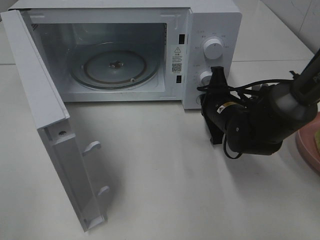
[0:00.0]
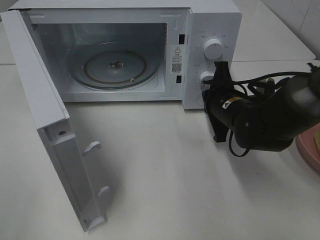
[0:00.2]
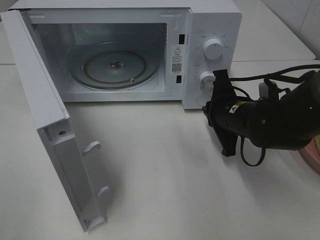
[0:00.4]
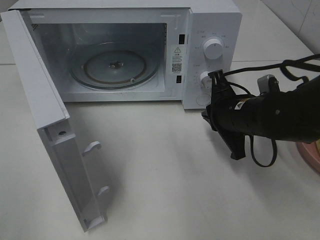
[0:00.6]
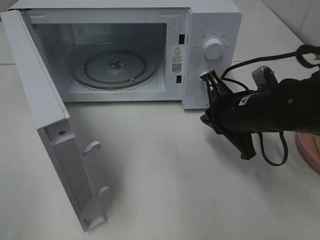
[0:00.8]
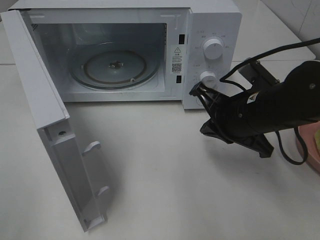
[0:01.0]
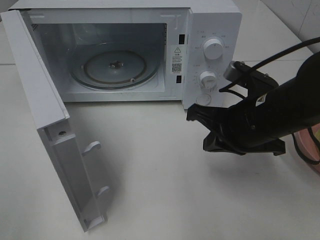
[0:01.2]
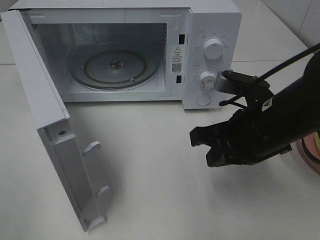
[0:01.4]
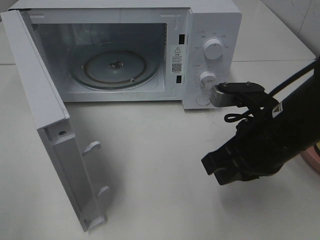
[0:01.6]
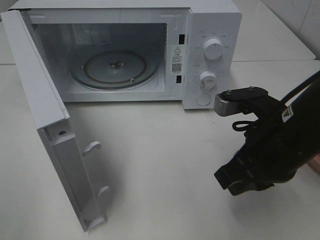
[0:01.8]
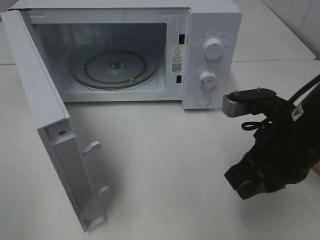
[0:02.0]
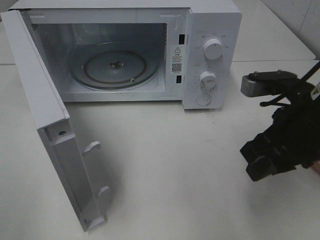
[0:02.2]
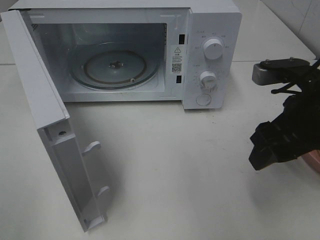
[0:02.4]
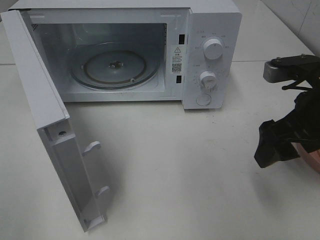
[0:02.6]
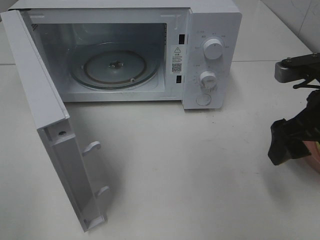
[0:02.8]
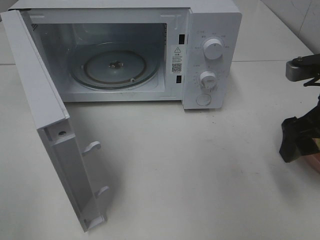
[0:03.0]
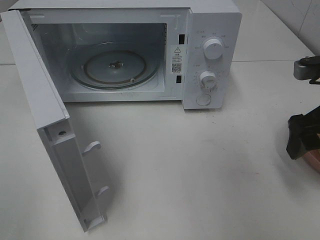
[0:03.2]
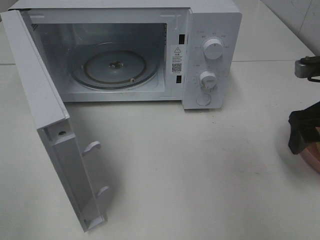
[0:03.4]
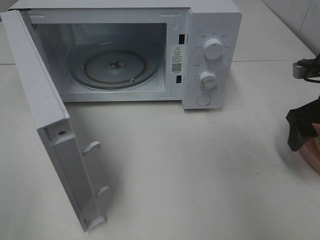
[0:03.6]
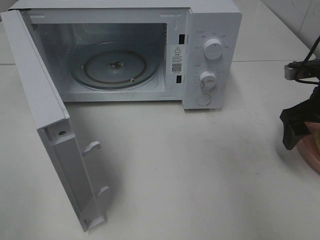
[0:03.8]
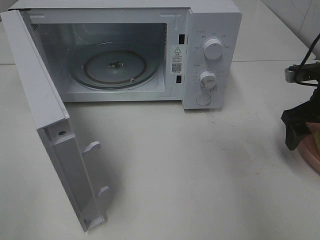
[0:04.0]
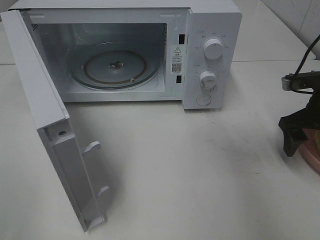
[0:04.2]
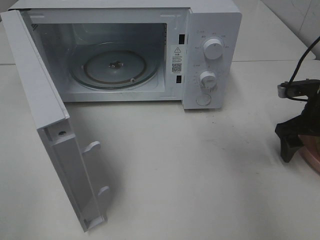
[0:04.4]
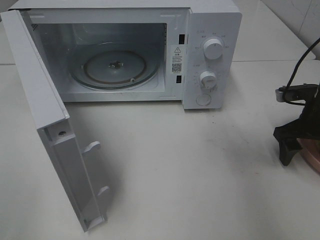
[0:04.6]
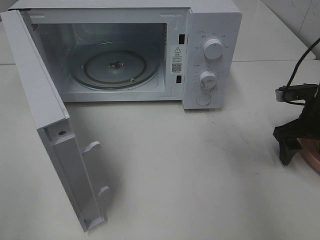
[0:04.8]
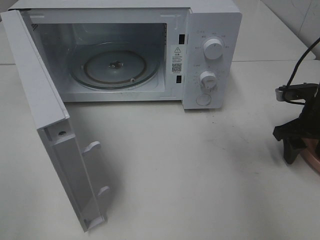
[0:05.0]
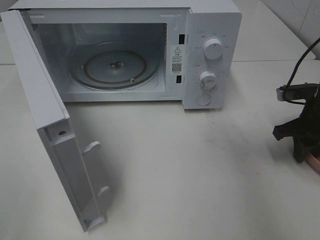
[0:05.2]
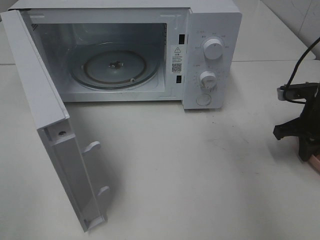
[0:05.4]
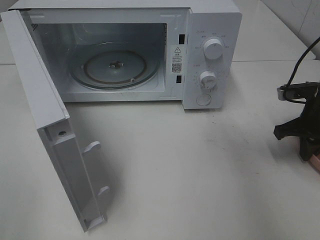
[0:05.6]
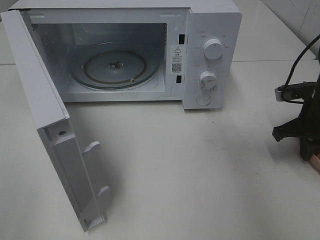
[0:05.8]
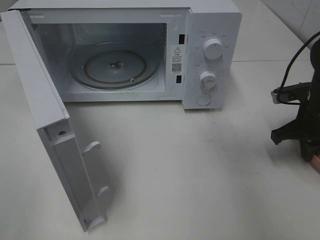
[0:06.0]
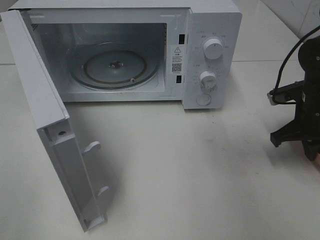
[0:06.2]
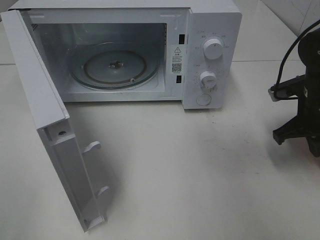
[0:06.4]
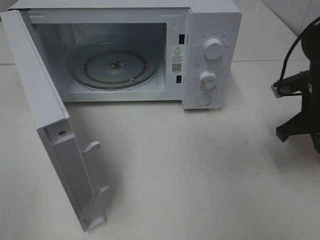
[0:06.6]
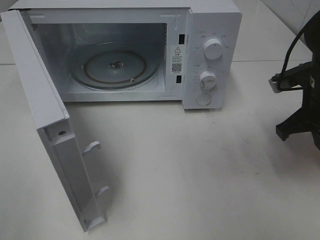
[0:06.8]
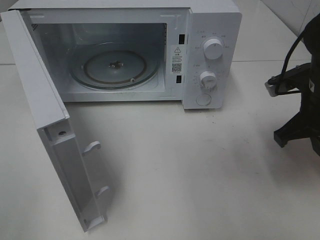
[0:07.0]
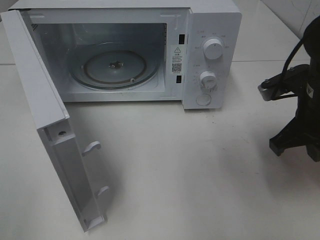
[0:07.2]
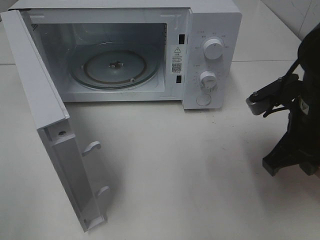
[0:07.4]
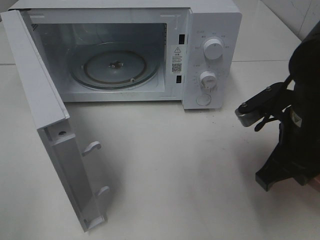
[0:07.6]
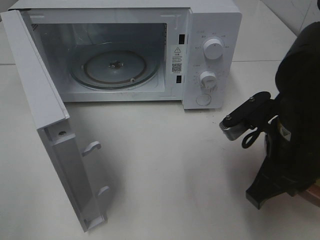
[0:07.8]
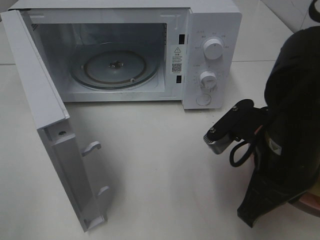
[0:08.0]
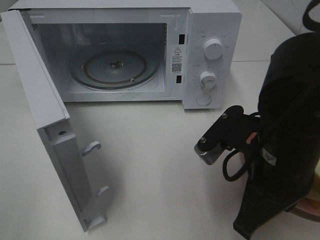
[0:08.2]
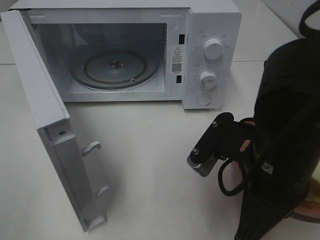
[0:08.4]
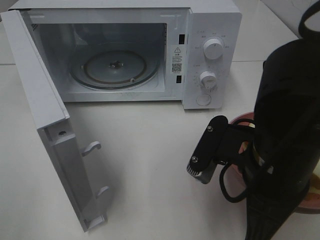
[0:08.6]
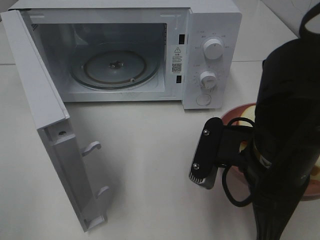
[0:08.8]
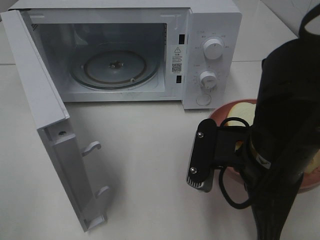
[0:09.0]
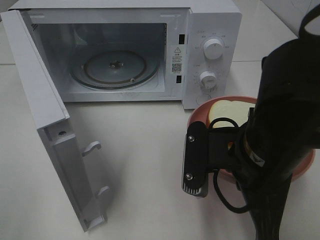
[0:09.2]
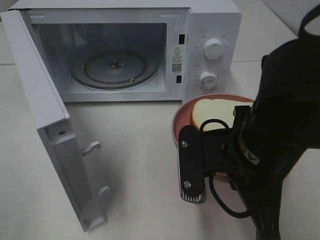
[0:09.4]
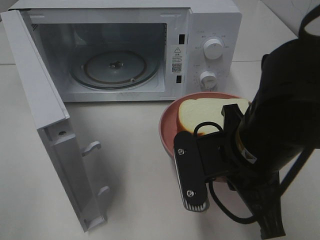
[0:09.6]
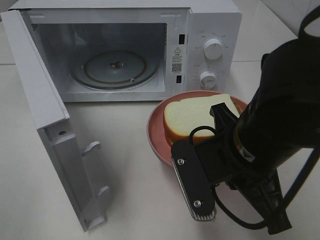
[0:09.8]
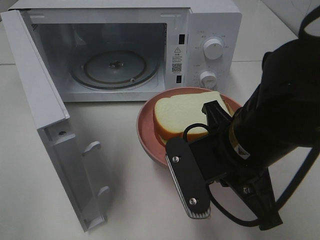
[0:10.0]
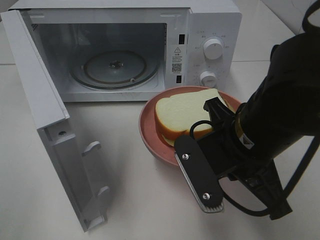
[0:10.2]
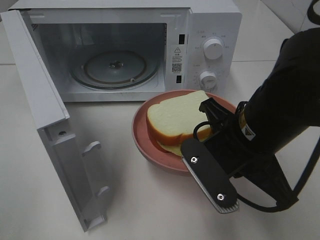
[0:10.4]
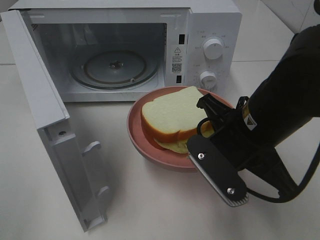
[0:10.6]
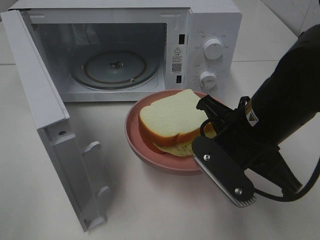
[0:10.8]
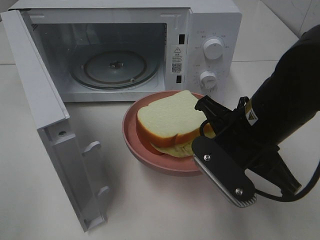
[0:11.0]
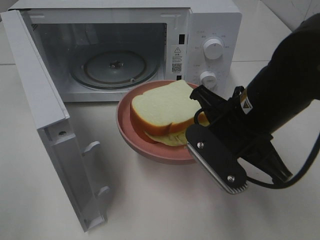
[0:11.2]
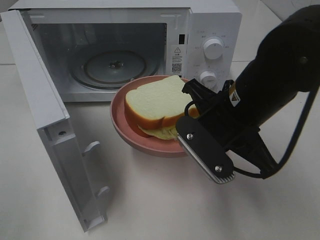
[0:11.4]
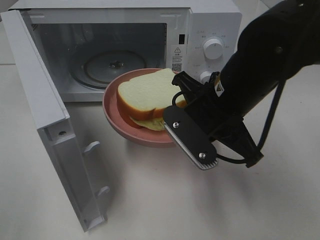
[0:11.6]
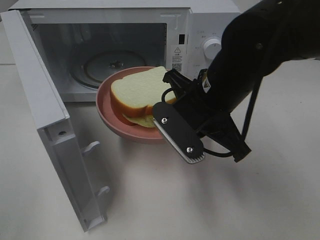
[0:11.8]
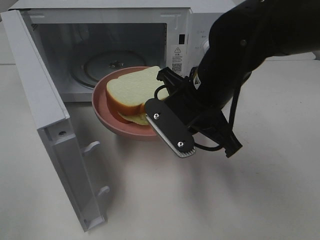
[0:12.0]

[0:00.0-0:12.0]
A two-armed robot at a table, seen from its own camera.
Task of the whole recording: Heat Sandwich.
Step, 0:00.2 to 0:05.8: Right hand: grab the plate with the sandwich.
0:00.0 to 0:01.6: The right gripper goes about 15 cm backward and upward.
0:01.6 to 0:03.0: The right gripper travels to the right by about 10 cm, and opens up.
0:03.0 to 0:04.4: The right gripper travels downward, forward and to the right by some 15 cm.
0:04.4 to 0:06.0: The right gripper closes up.
0:06.0 to 0:07.6: The right gripper moves backward, to the left and upward, approximately 15 cm.
0:07.6 to 0:09.0: The right gripper shifts about 5 cm to the left.
0:10.4 to 0:12.0: The right gripper heads forward, covering approximately 5 cm.

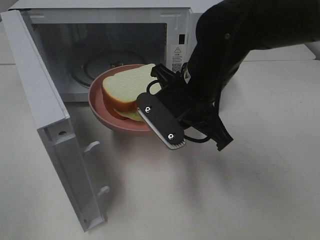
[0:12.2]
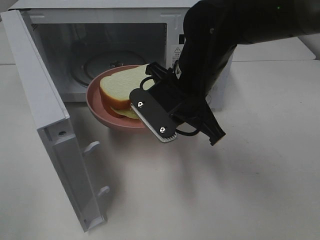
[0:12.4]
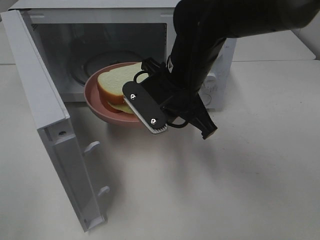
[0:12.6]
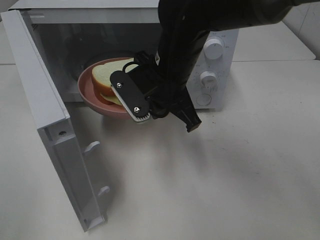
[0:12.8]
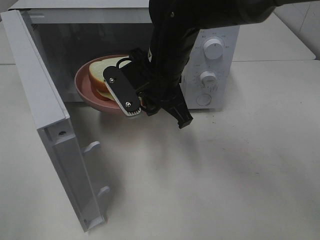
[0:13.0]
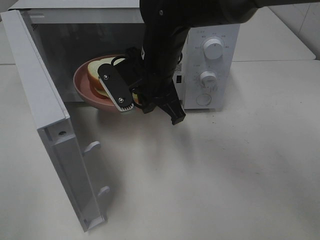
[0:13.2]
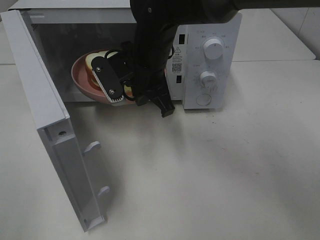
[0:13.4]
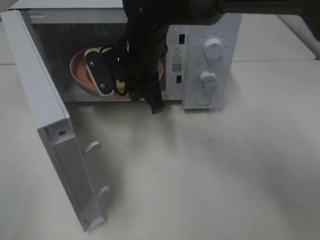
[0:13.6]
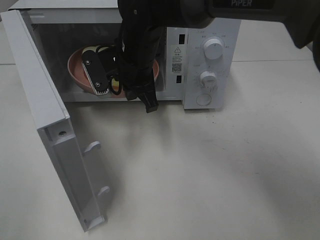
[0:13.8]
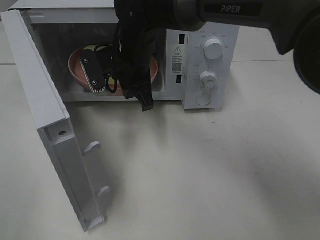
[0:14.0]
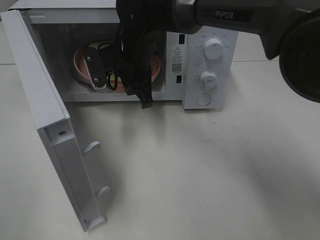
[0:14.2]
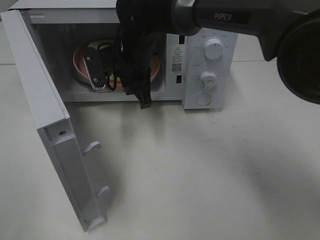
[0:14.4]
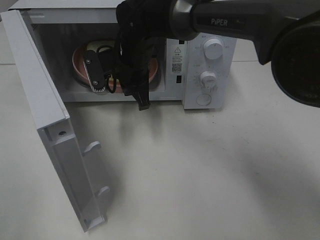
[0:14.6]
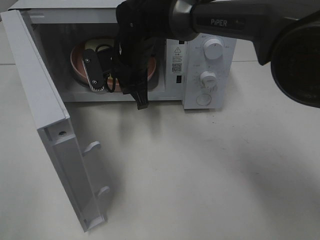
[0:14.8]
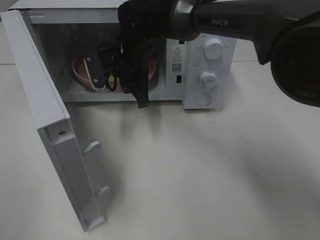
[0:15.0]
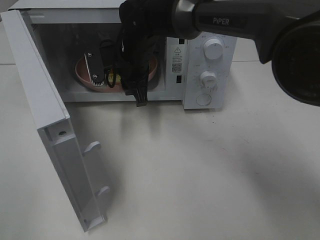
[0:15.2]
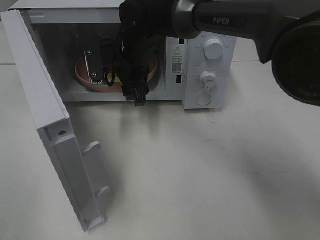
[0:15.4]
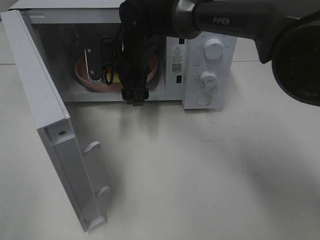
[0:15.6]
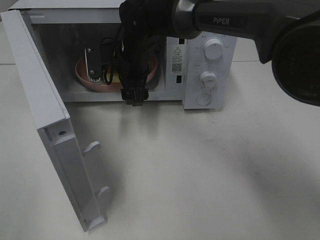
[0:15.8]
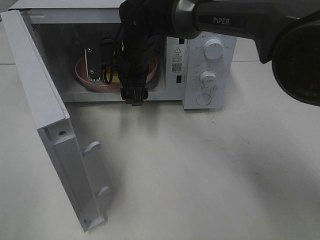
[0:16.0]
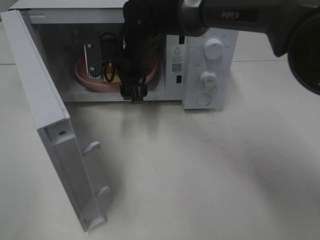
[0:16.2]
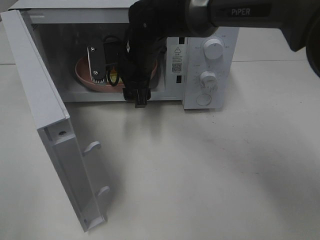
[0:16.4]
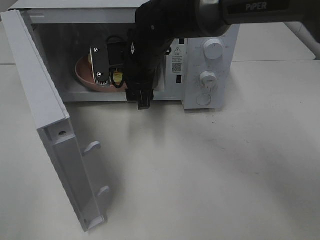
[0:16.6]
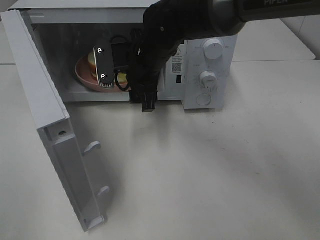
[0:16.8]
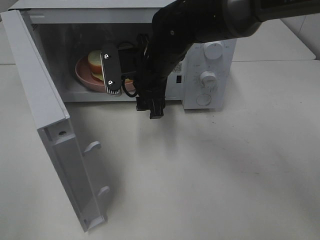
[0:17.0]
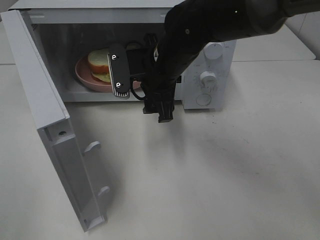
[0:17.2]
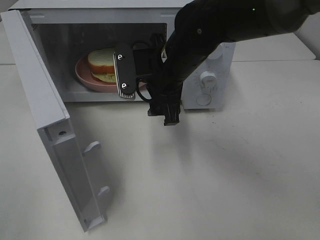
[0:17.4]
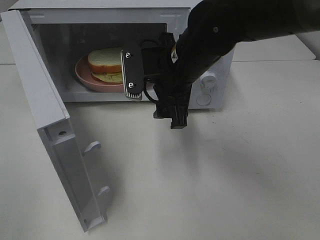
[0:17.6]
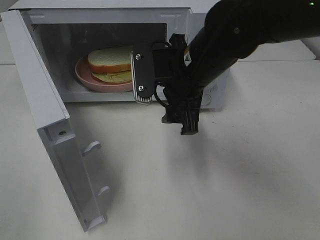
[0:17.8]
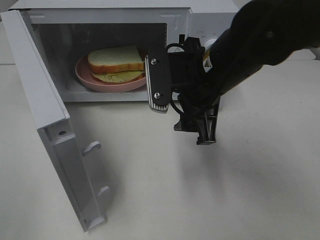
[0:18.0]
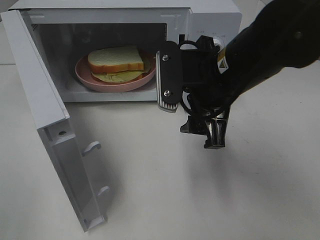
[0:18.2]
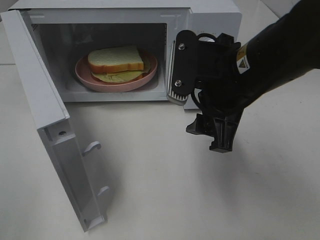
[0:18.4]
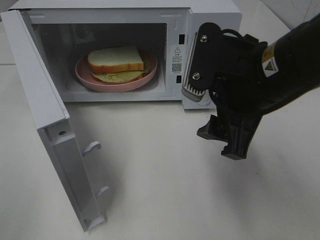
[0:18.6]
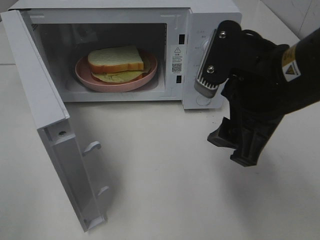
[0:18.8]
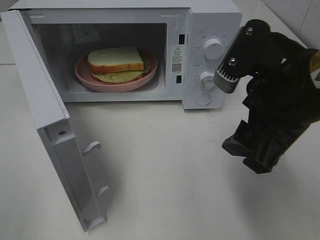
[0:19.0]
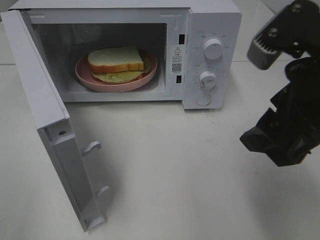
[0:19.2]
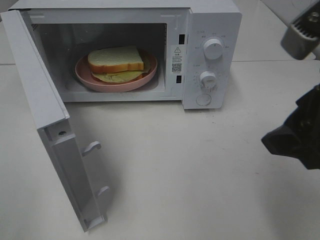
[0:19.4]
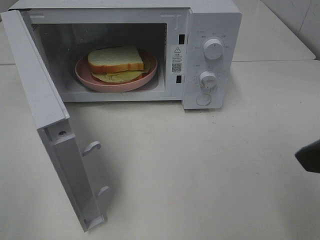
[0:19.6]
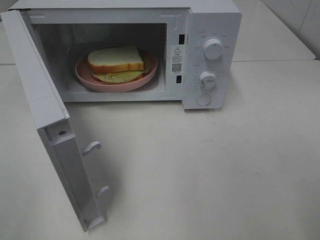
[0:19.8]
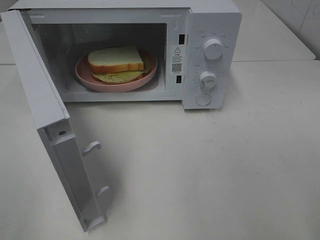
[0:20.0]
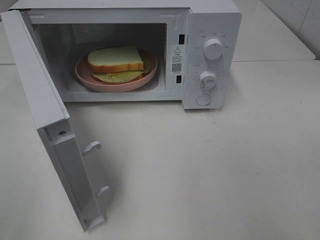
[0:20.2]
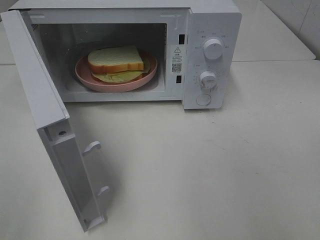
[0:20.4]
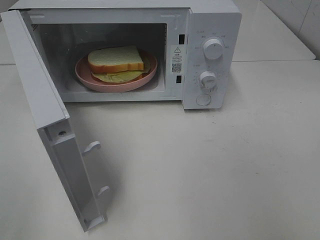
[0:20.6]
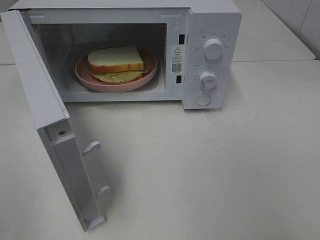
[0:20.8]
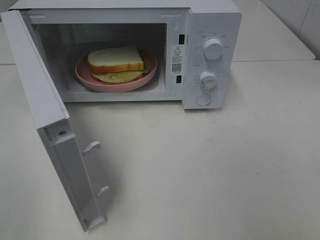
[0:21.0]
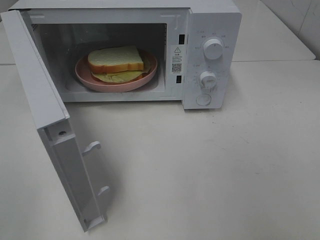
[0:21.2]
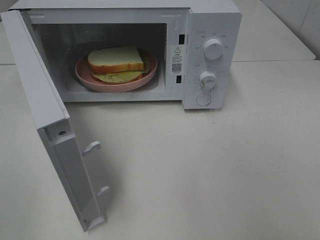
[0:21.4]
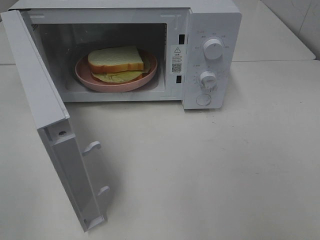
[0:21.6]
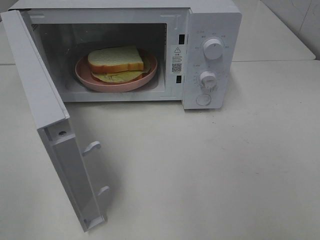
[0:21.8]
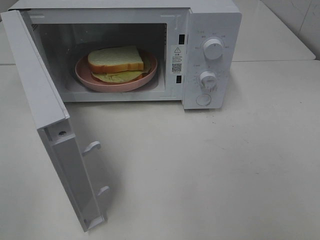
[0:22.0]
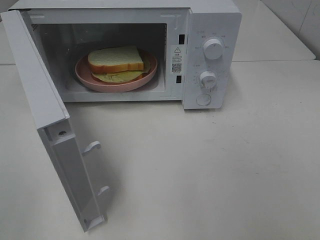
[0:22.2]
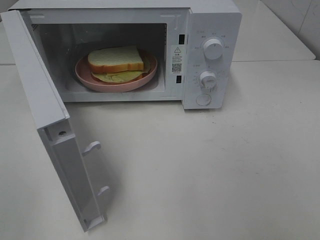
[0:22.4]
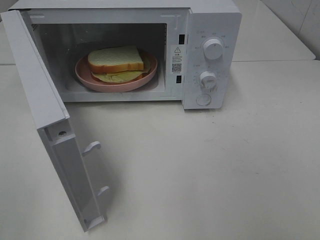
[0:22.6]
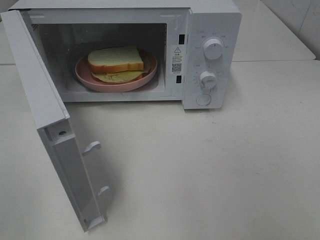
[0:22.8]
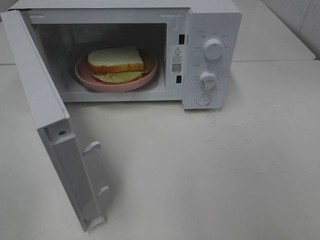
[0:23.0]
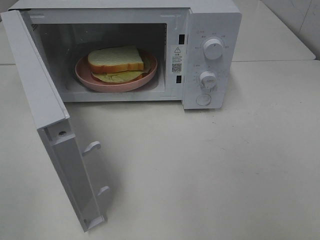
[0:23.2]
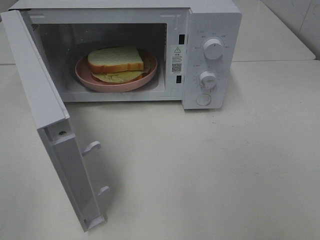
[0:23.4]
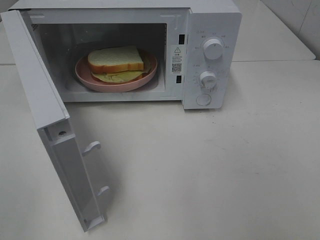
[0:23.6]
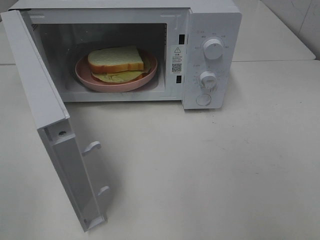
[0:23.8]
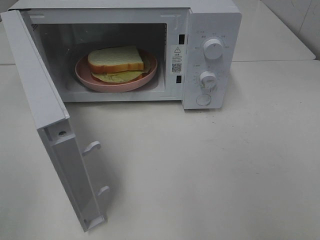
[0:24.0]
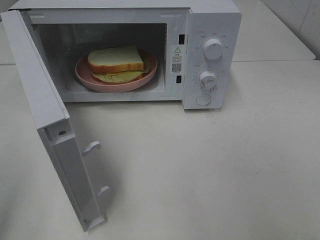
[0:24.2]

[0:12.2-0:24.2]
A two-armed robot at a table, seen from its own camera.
Task of the whole recording: Heat Sandwich.
Step, 0:12.2 to 0:16.6: Right hand: place the plate in the microwave.
0:12.2 to 0:13.8: The right gripper goes roughly 15 cm forward and to the left.
0:13.8 to 0:15.2: The right gripper opens up.
0:15.2 to 0:16.6: The right gripper opens.
0:16.6 to 0:18.2: The right gripper is displaced backward and to the right by about 15 cm.
0:18.2 to 0:19.8: The right gripper goes about 20 cm backward, to the right and upward.
